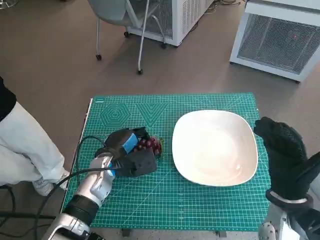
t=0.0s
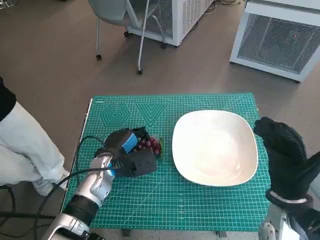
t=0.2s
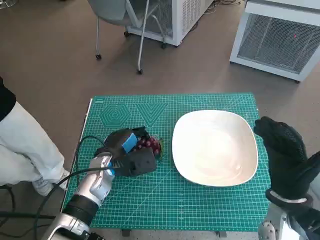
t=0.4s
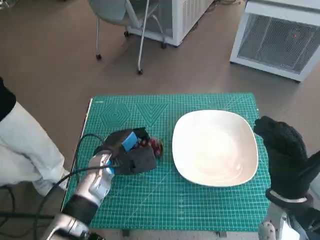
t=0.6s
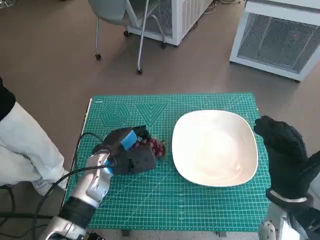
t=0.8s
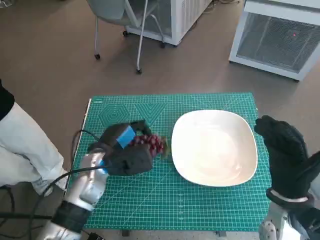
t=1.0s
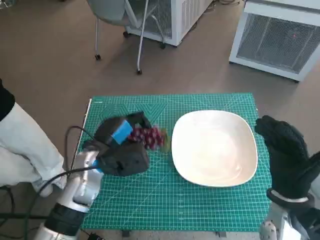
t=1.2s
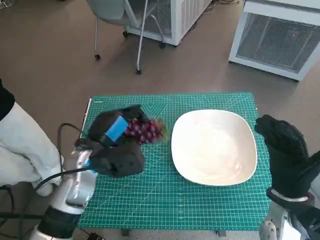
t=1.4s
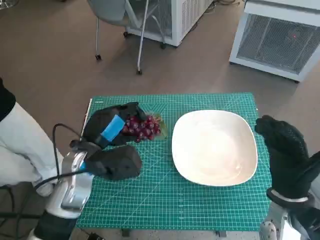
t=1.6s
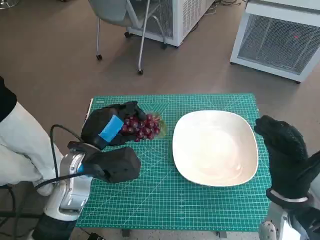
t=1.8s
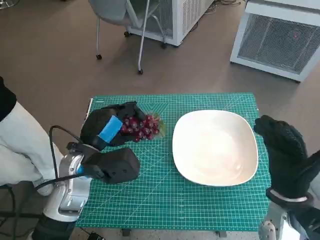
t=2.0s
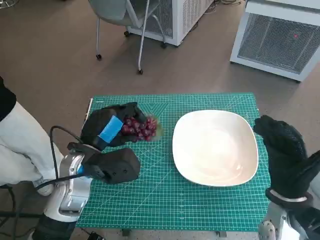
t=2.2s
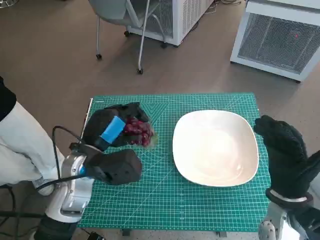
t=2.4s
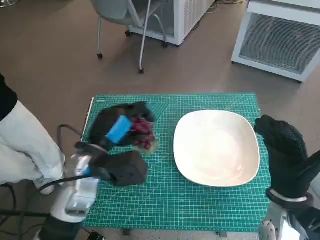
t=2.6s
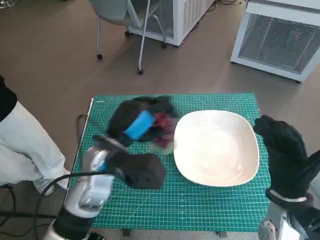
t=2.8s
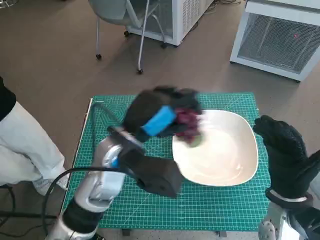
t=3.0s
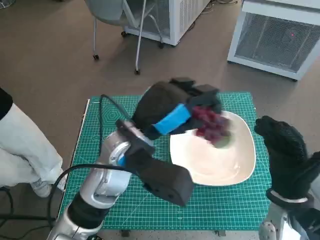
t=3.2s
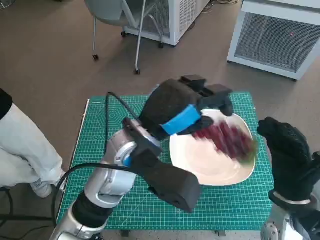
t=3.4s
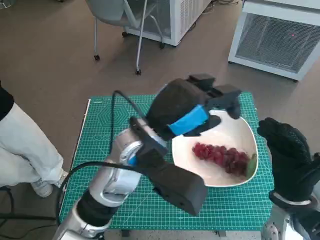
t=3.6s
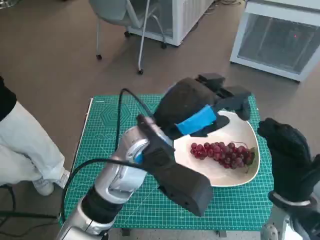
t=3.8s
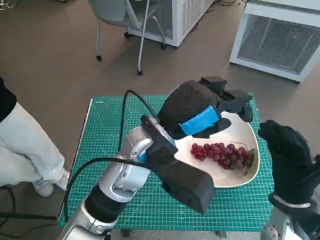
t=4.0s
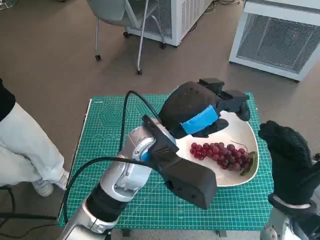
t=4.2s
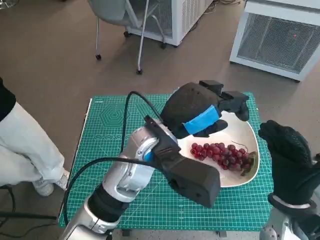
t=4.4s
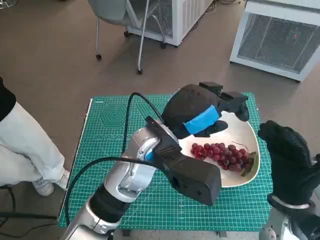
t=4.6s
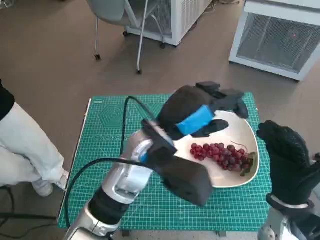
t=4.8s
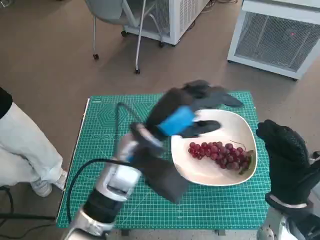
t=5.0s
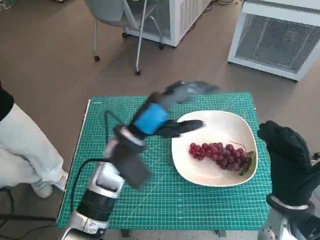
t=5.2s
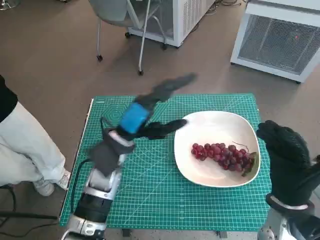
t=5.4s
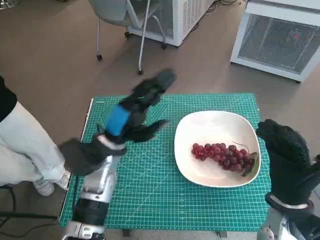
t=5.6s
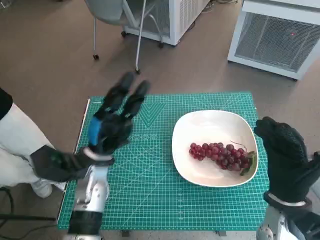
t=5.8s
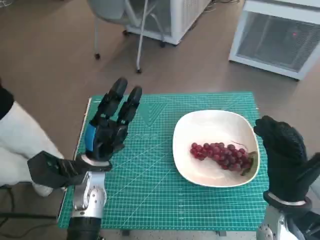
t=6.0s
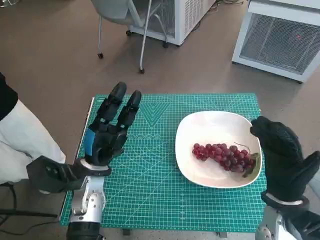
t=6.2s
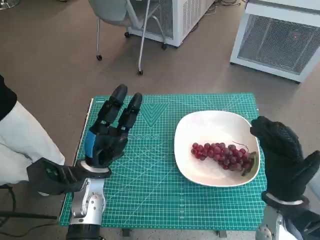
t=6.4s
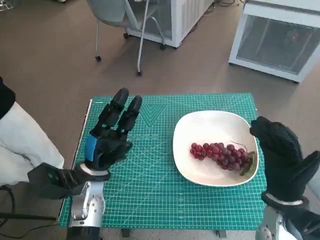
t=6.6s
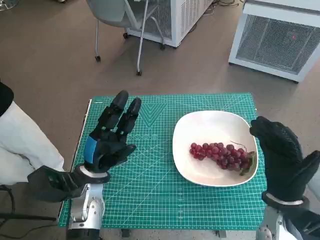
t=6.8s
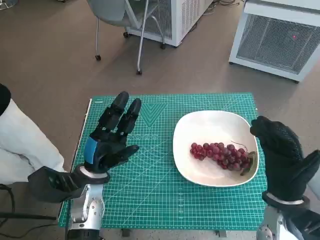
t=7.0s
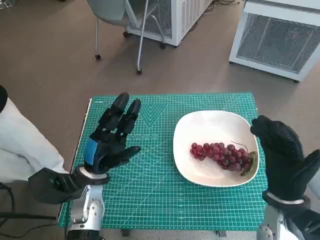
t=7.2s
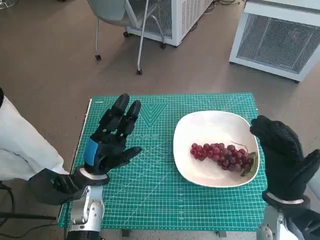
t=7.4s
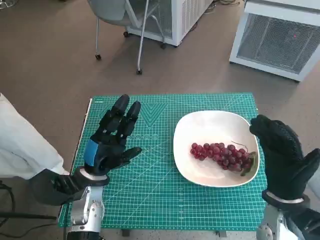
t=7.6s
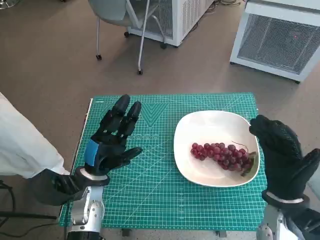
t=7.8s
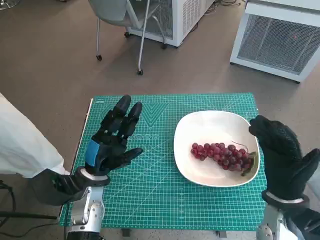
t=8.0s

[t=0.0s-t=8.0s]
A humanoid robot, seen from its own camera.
Task of the whole recording: Pick up the grapes and put them on the plate.
Step, t=0.8s to t=3.8s: Place the grapes in the plate with left hand.
t=0.0s to t=1.6s: The left hand heads upward, covering some 10 cm.
t=1.6s to t=3.2s: The left hand heads to the right and upward, covering some 10 cm.
t=4.8s to t=6.4s: The left hand shifts approximately 20 cm to the left and downward.
t=6.4s to t=8.0s: The hands move only a little.

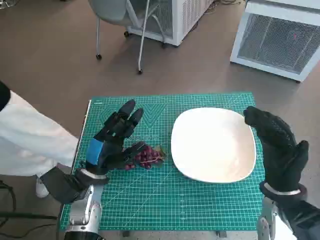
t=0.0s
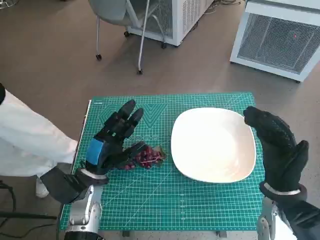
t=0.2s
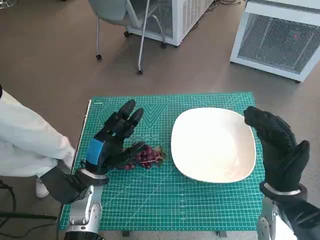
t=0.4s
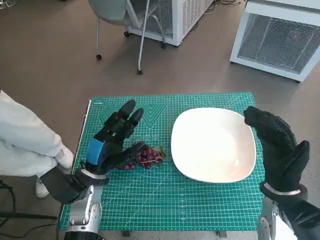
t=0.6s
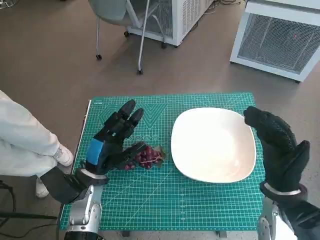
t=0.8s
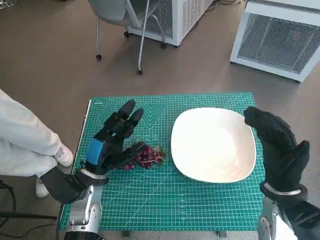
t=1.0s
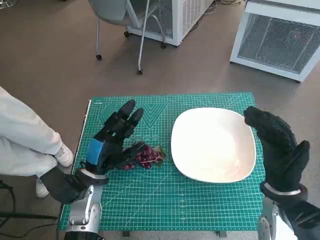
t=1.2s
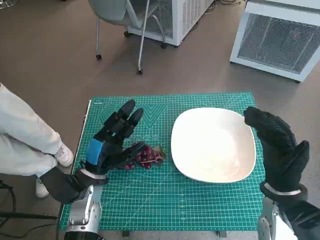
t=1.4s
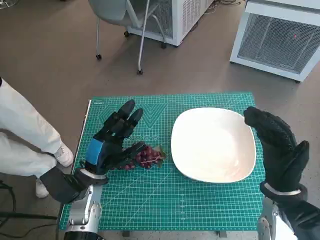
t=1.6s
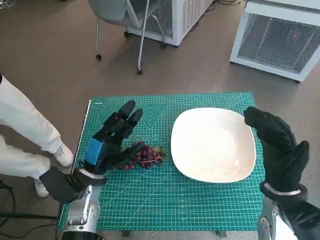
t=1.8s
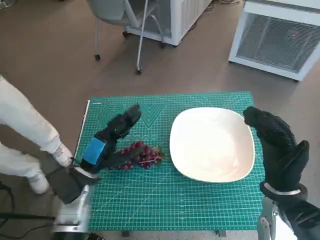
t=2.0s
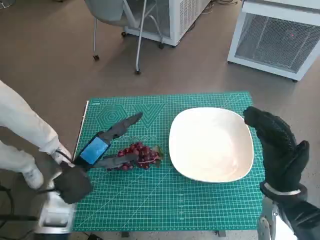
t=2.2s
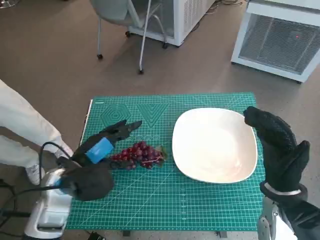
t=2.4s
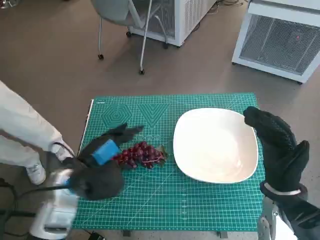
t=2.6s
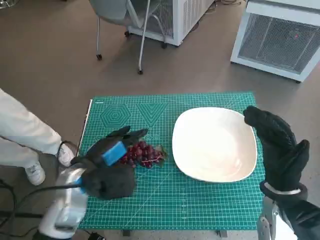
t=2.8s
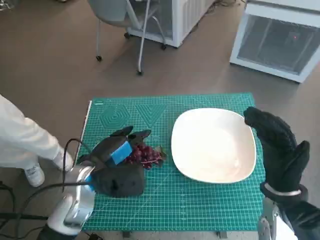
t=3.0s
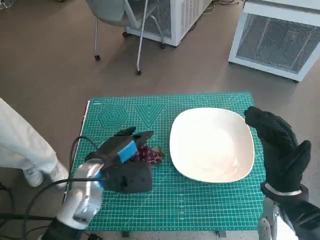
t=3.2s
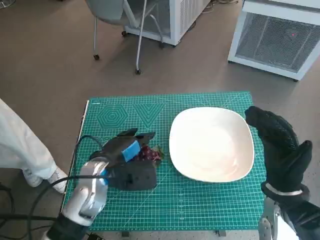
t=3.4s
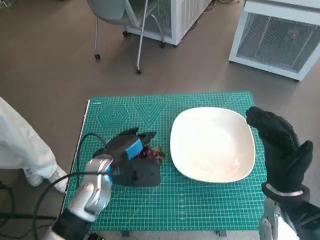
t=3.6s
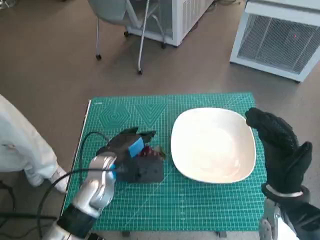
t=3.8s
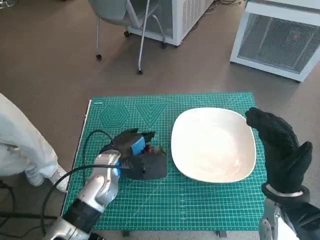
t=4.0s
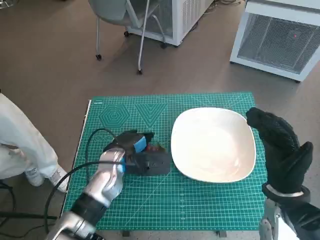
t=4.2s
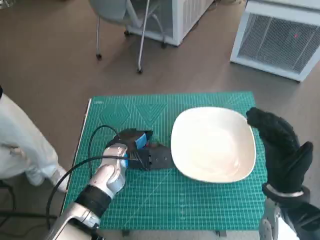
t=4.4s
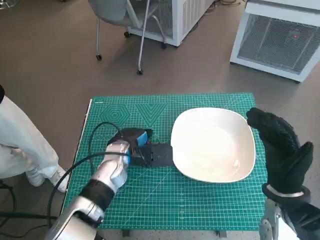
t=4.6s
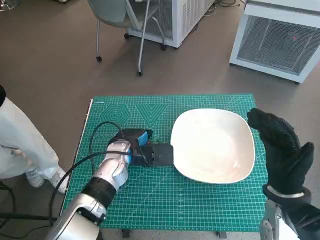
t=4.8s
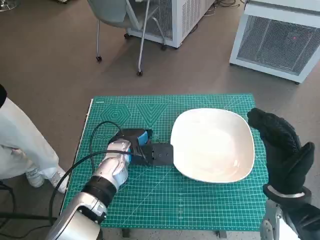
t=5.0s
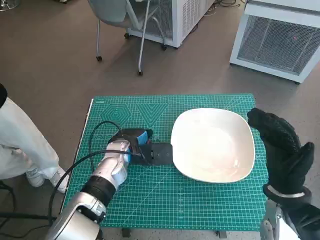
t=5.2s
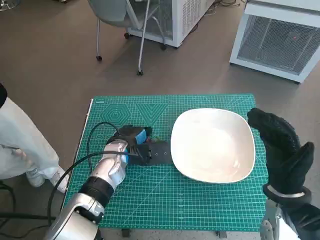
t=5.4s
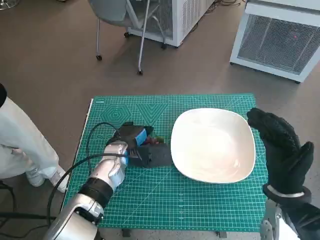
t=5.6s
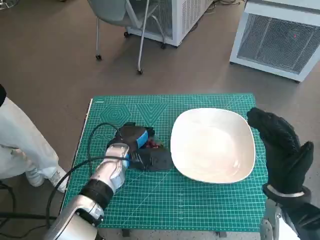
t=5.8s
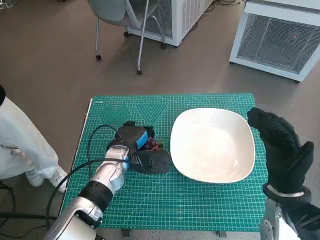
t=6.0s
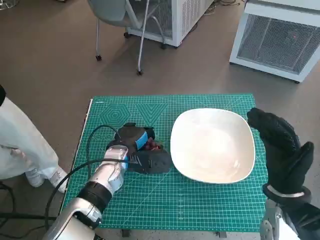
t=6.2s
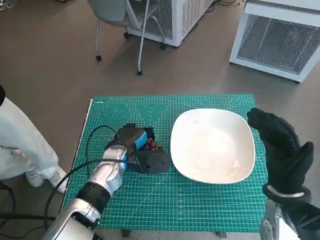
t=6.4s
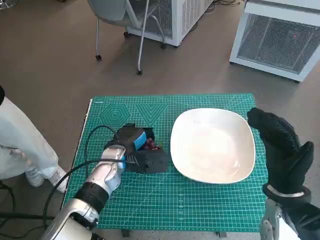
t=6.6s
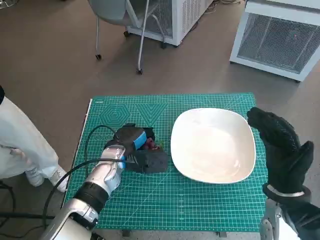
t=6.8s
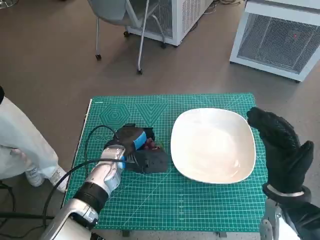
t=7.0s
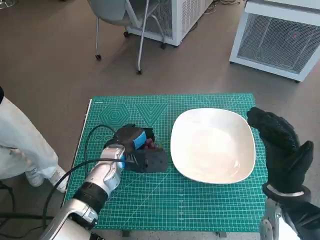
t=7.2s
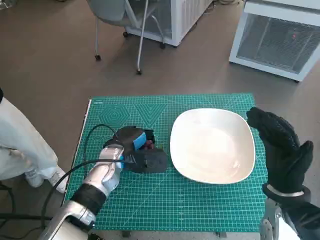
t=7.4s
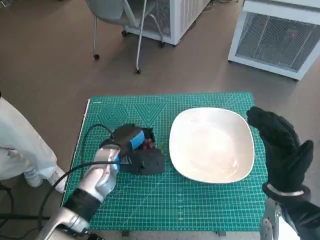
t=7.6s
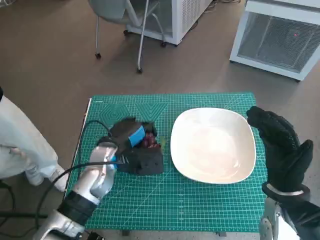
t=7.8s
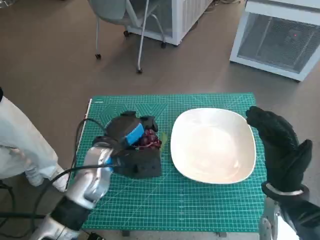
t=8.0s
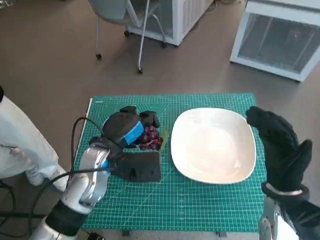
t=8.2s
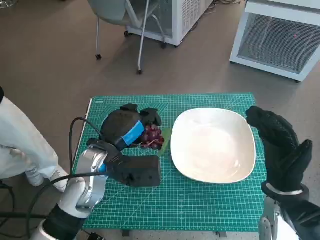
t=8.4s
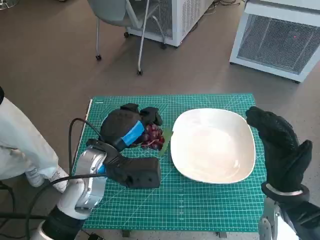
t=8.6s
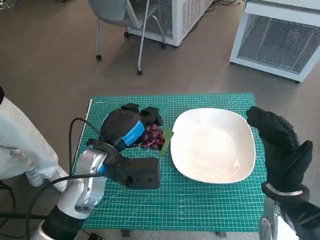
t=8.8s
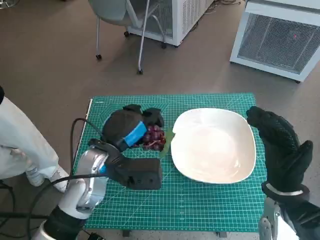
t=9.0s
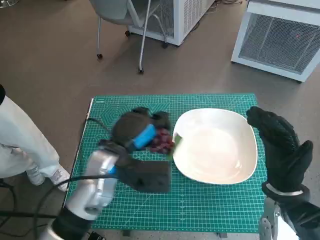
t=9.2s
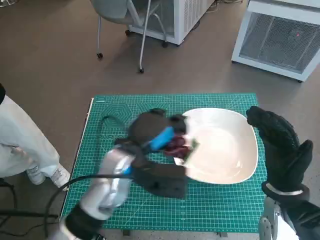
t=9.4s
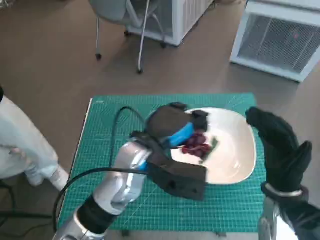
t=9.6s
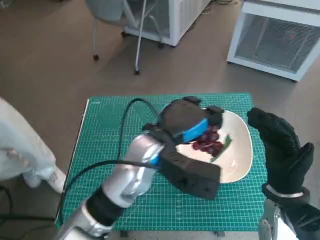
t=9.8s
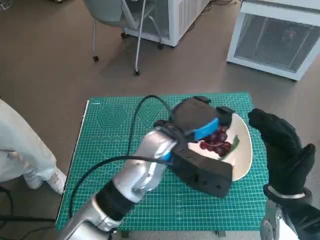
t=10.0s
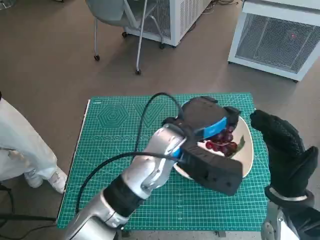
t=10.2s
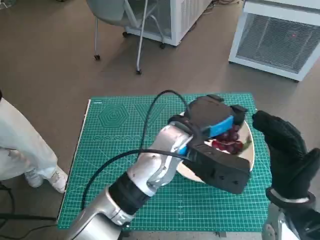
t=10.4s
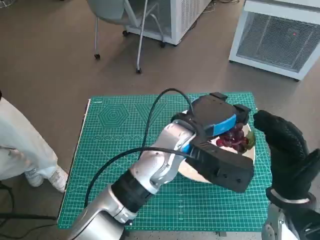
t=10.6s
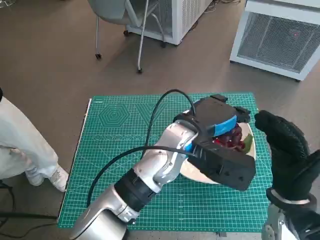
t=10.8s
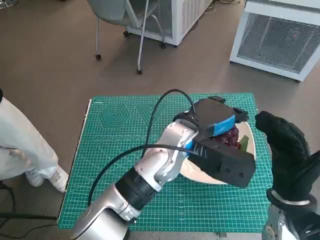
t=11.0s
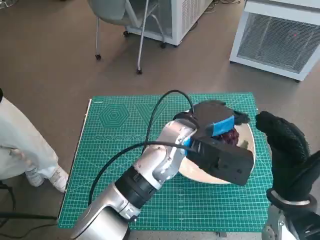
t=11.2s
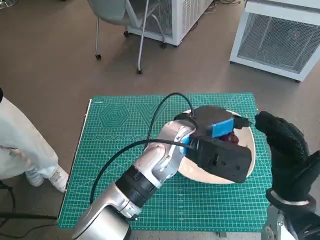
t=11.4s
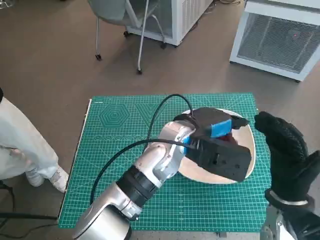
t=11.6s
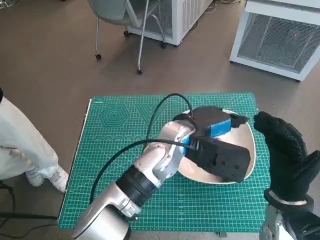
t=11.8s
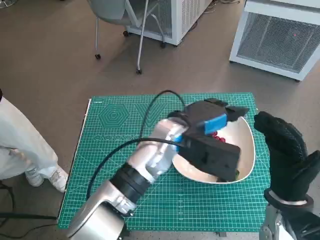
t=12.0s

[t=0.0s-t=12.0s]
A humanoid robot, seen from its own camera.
Task of the whole recording: Pick up the grapes and put them on the plate.
Step, t=0.0s to t=5.6s: Grasp the grapes with left hand.
Step, t=5.8s to t=11.6s: Place the grapes in the plate with left hand.
t=1.6s to t=3.0s: The left hand goes some 5 cm upward.
t=3.0s to t=4.4s: The left hand is displaced forward by roughly 5 cm.
t=4.4s to t=7.6s: The hands move only a little.
t=7.6s to t=9.0s: The left hand heads upward, covering some 5 cm.
t=9.0s to t=10.4s: The left hand is displaced to the right by some 15 cm.
t=10.4s to t=12.0s: There are only small adjustments of the hands.

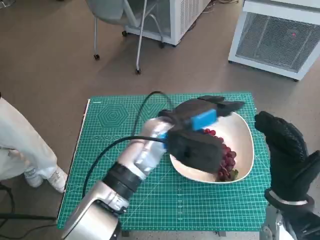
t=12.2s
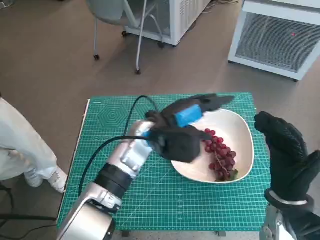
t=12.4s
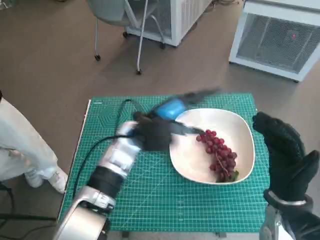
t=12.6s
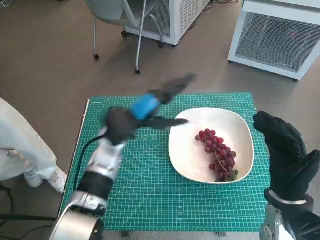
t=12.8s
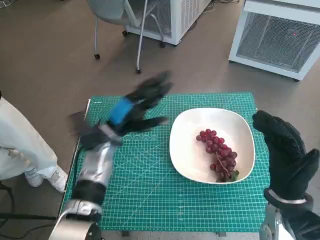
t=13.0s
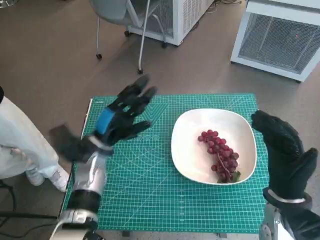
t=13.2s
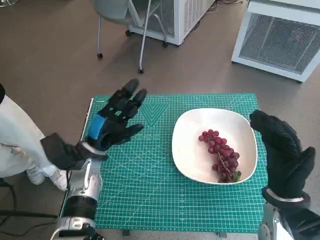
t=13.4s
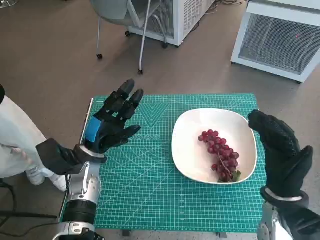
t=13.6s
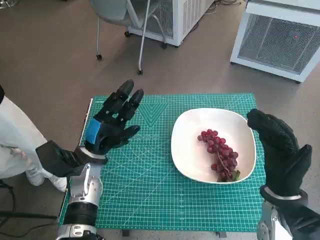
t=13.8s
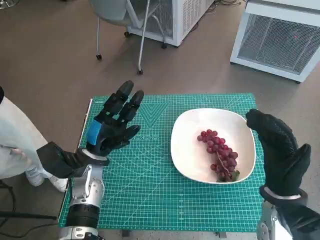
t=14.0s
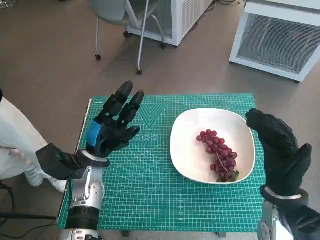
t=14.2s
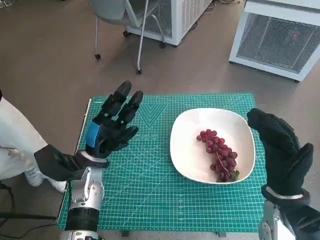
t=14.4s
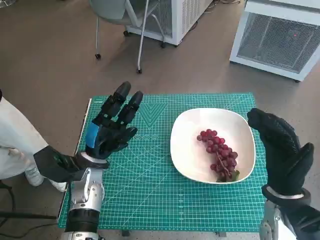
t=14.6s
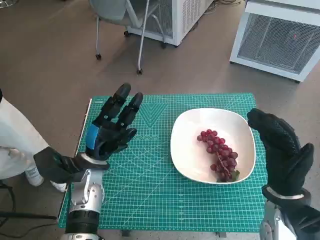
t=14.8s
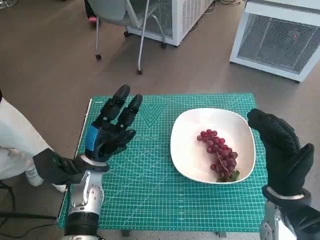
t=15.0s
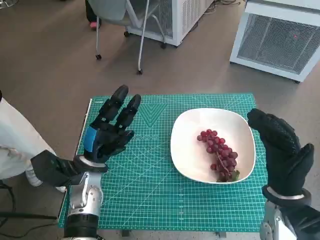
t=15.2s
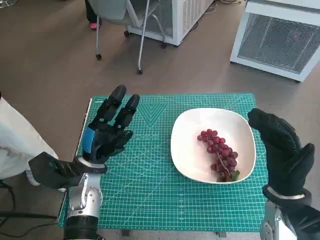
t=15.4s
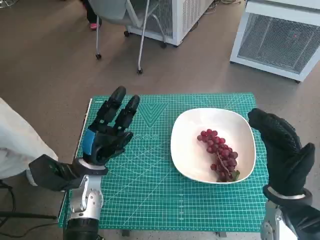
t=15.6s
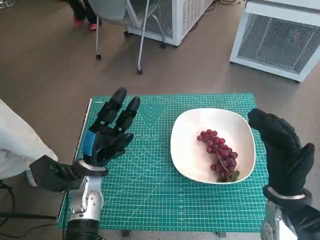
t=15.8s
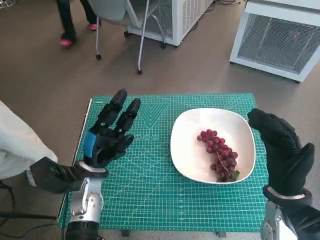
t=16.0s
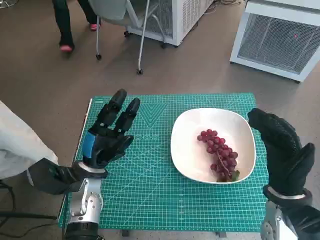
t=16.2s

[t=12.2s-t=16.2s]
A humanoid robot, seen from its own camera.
Task of the whole recording: Pick up the grapes and put them on the plate.
t=12.2s to t=13.6s: The left hand goes roughly 20 cm to the left and downward.
t=13.6s to t=16.2s: The hands make only small movements.
